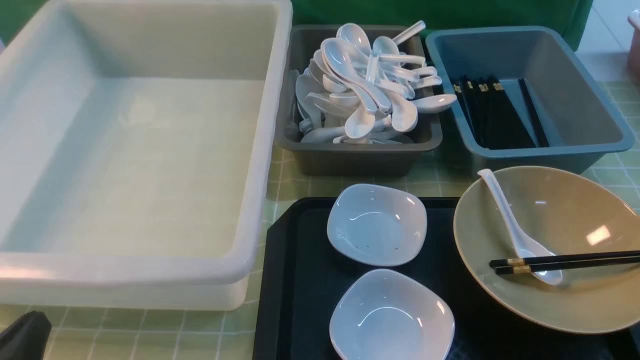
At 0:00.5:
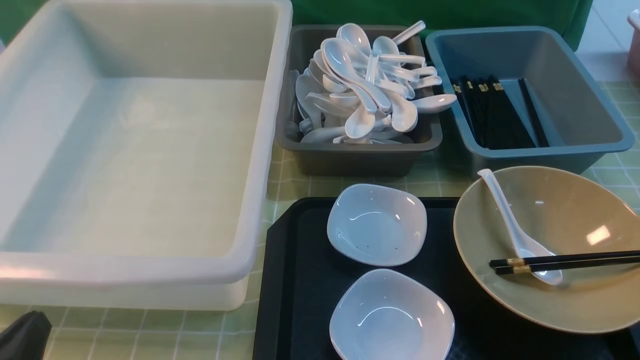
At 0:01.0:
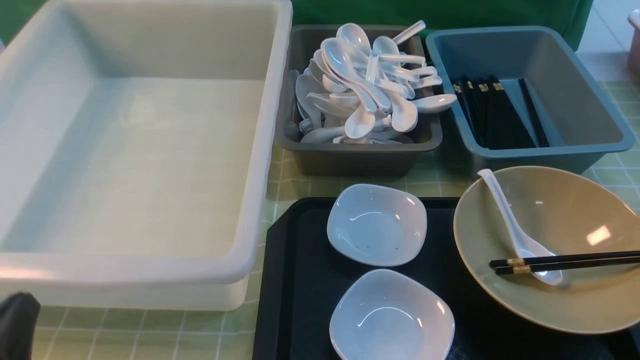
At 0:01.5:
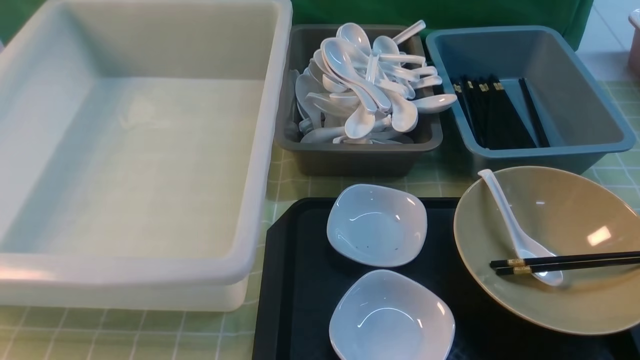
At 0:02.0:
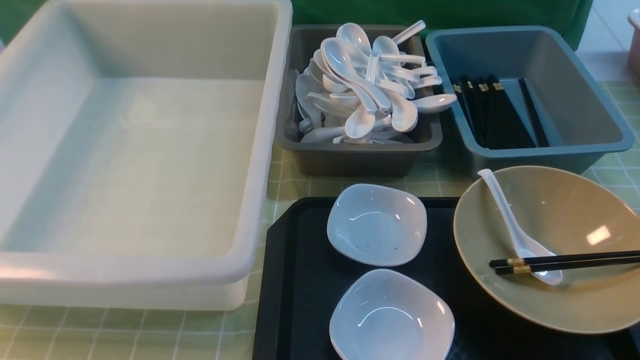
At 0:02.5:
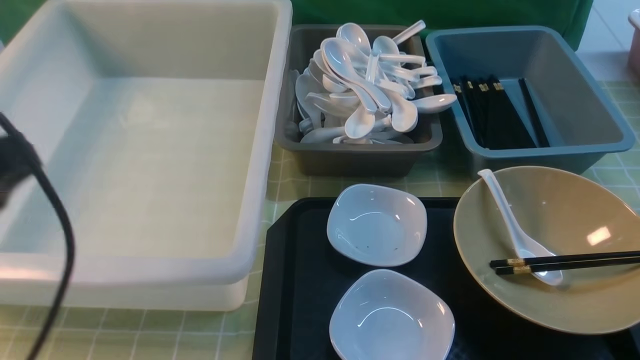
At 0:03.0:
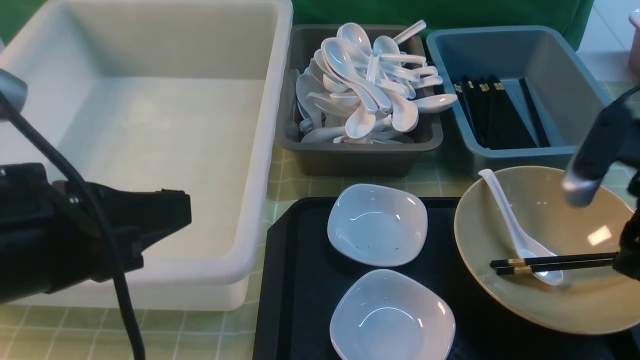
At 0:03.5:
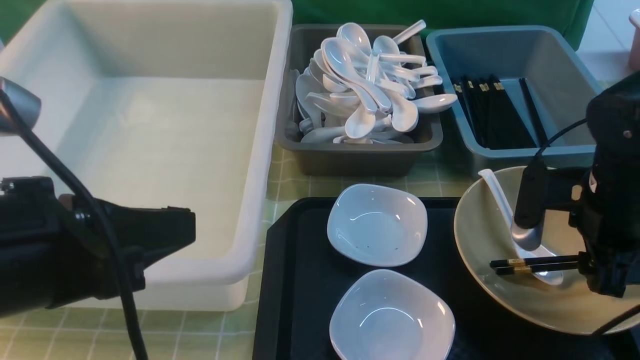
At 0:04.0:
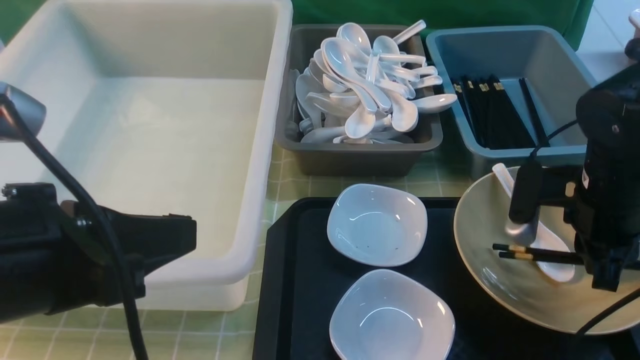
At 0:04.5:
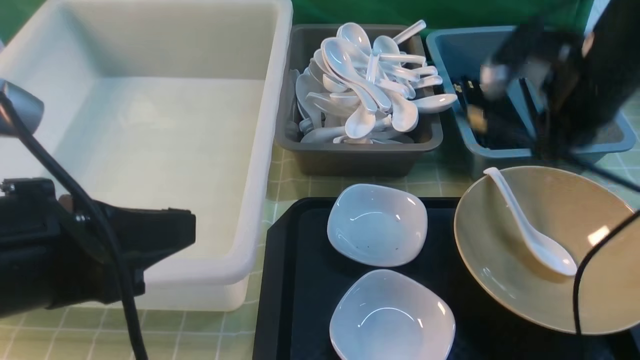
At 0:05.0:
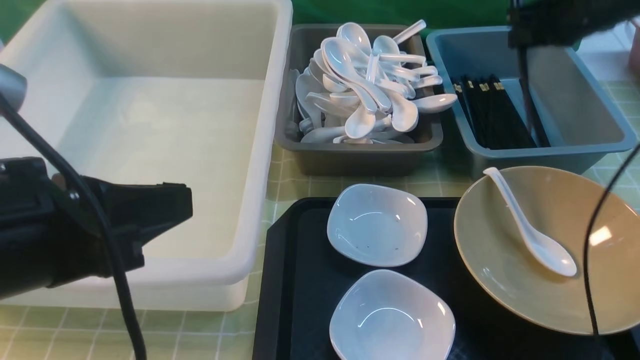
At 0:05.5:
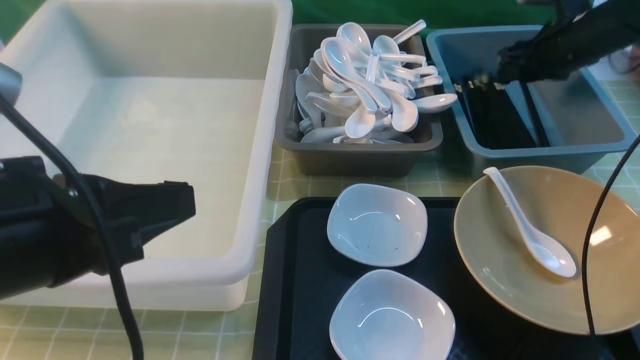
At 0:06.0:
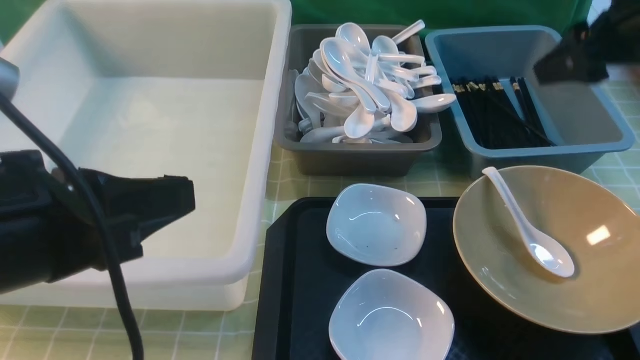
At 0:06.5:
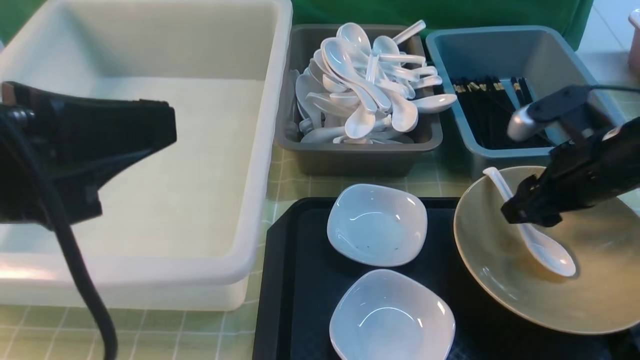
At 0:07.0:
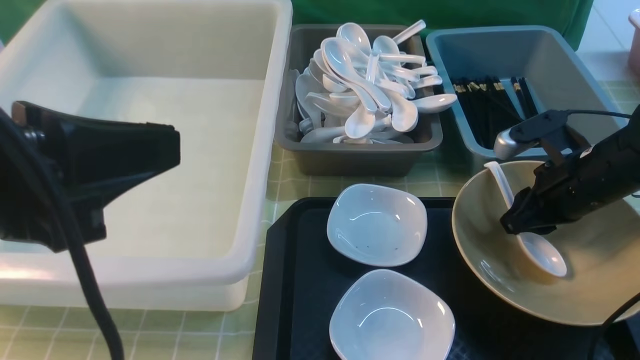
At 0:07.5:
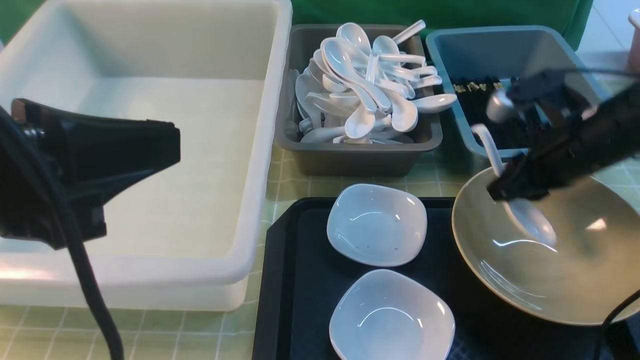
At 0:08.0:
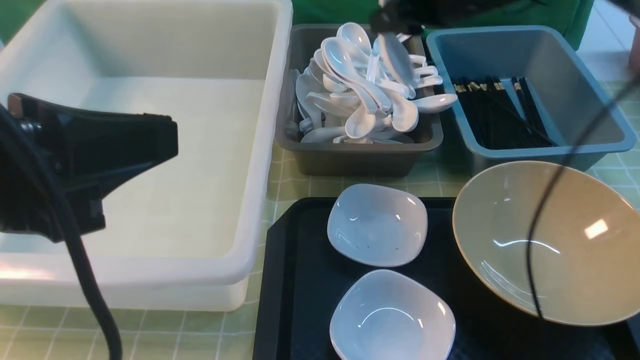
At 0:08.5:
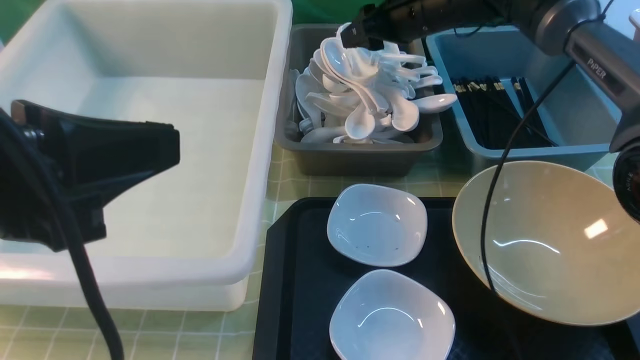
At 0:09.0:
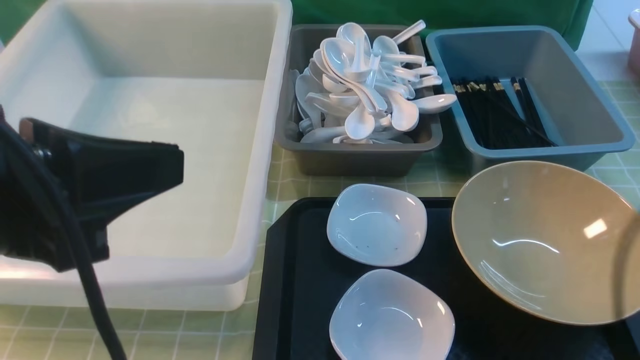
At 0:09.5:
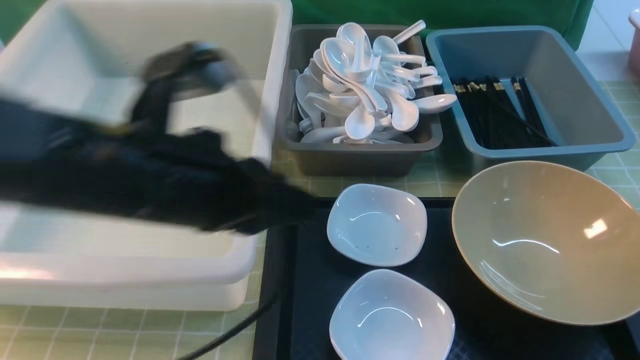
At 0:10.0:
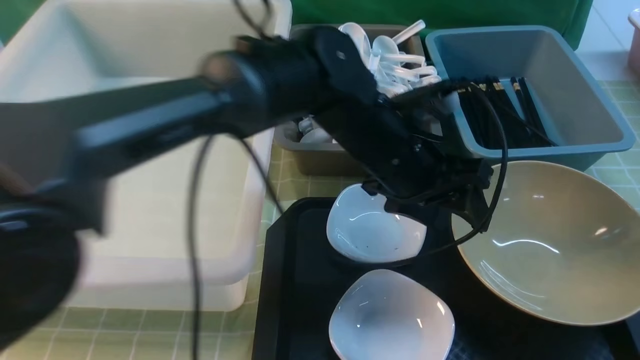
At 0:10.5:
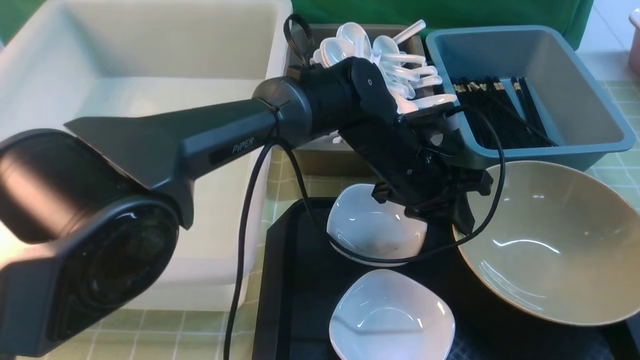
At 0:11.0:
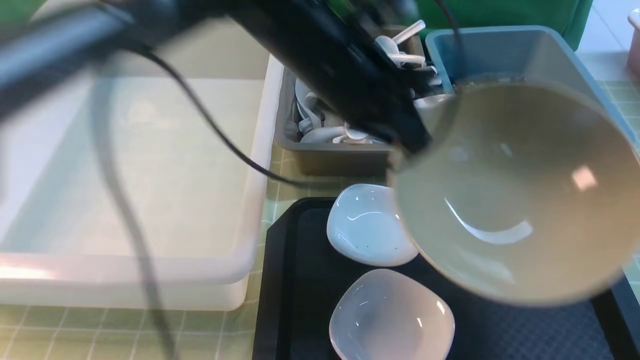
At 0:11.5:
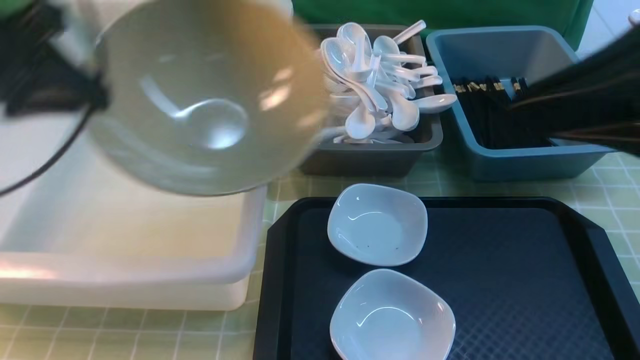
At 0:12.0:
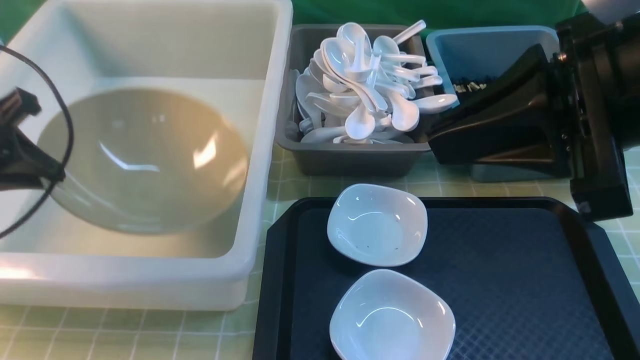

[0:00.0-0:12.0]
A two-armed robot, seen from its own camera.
Task of the whole recording: on green table put chopsticks spoon bowls plates into blue grey white boxes.
Step, 0:00.0 to 0:04.0: use the right arm to grab the chopsticks.
Step, 0:05.0 to 0:05.5: use the right arm to put the chopsticks into the small storage box on the right.
Step, 0:06.0 to 0:07.0: use the right arm to grab the soup spoon in the middle.
Step, 0:07.5 to 0:09.0: use the right arm to put the soup spoon into the small storage box in the middle.
Step, 0:09.5 to 0:10.5: use the left arm to grab the yellow noodle bowl on the left.
0:02.0 to 0:04.0: The right gripper moves forward and downward, approximately 30 cm, and opens and closes again, while the left gripper heads forward and to the right, covering roughly 10 cm.
0:04.0 to 0:06.0: The right gripper heads upward and forward, covering roughly 15 cm, and opens up.
0:06.0 to 0:08.0: The right gripper goes approximately 15 cm to the left and forward, moves about 15 cm downward and comes back, and closes up.
0:08.0 to 0:10.0: The left gripper travels to the right, forward and downward by roughly 30 cm, and opens. The right gripper moves backward, about 40 cm, and opens, then closes once more.
0:10.0 to 0:12.0: The right gripper travels forward and to the left by approximately 15 cm; the left gripper shifts about 35 cm to the left, and closes.

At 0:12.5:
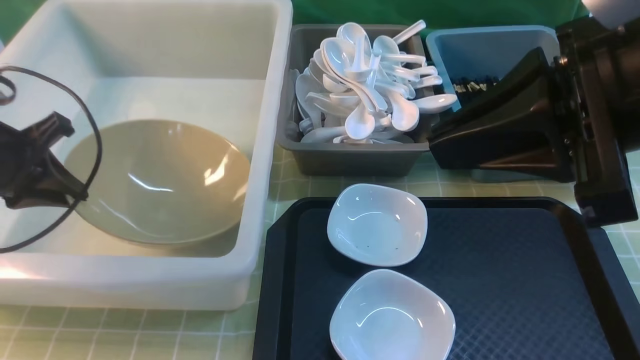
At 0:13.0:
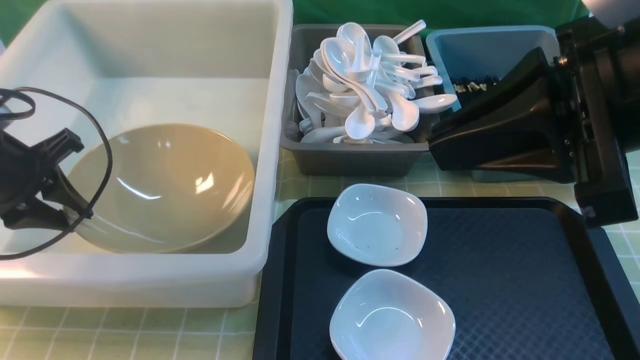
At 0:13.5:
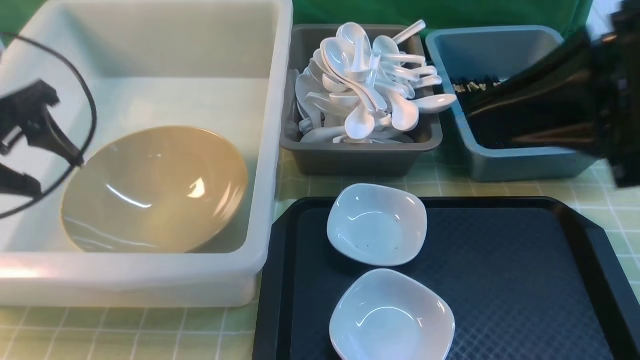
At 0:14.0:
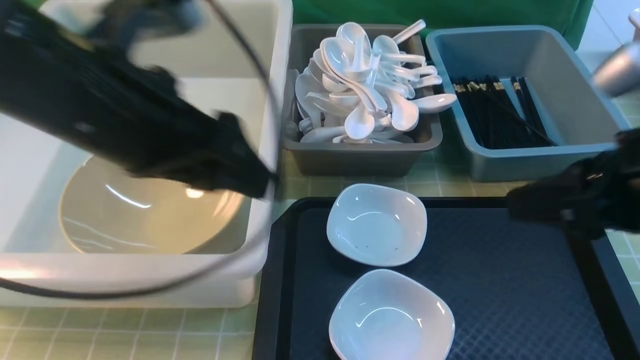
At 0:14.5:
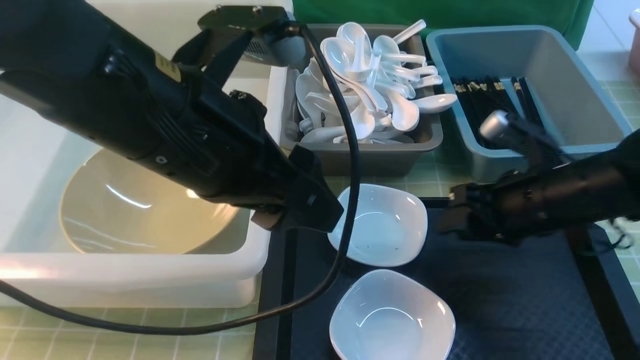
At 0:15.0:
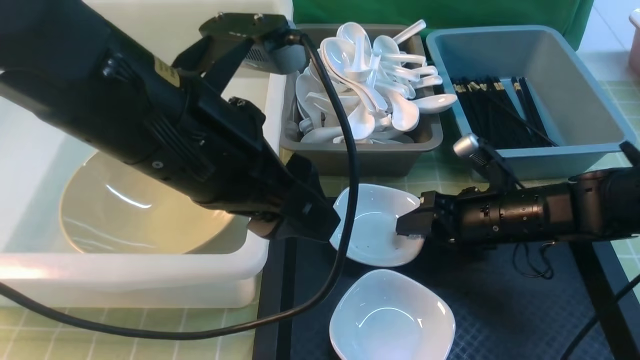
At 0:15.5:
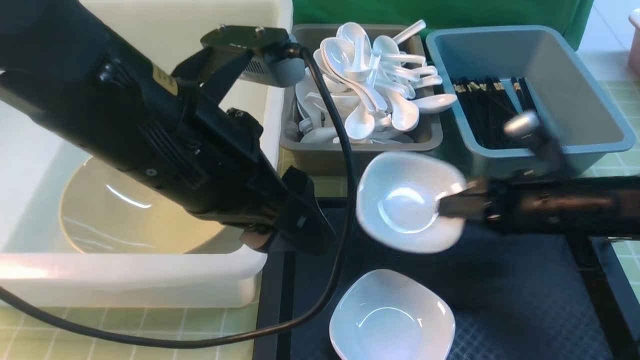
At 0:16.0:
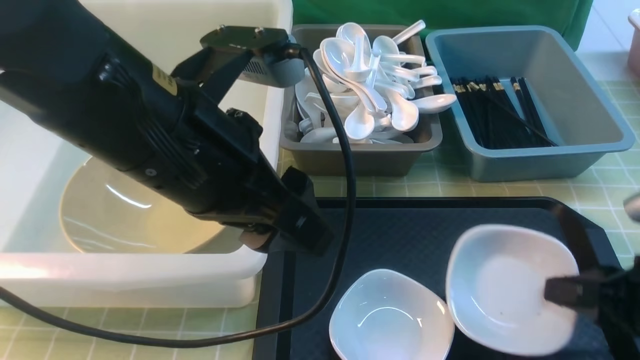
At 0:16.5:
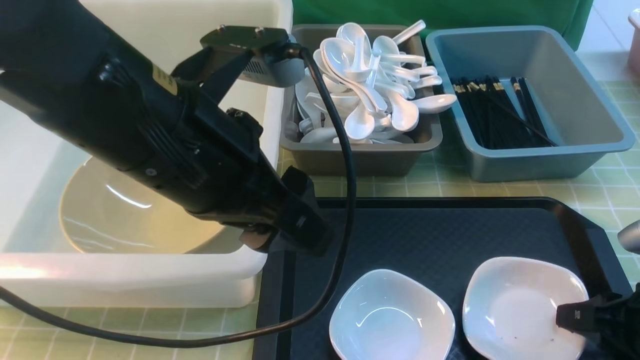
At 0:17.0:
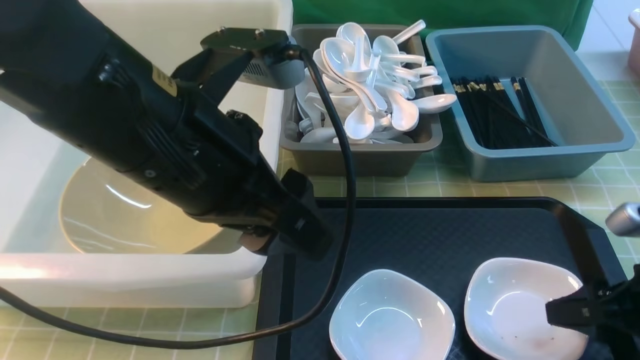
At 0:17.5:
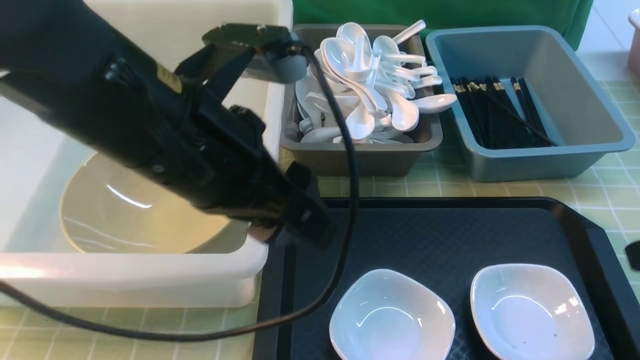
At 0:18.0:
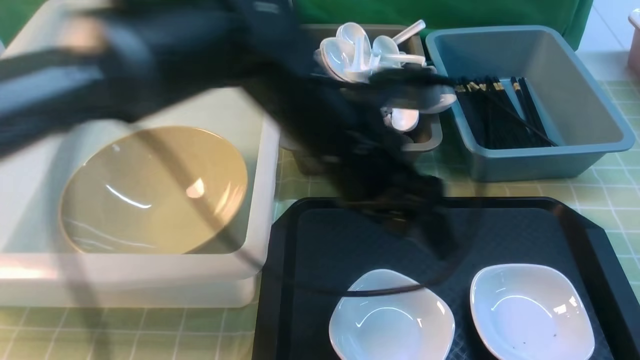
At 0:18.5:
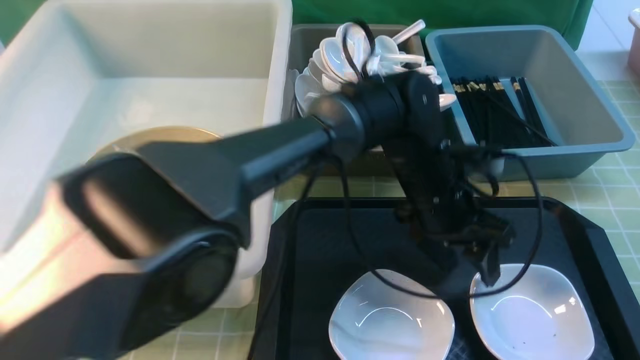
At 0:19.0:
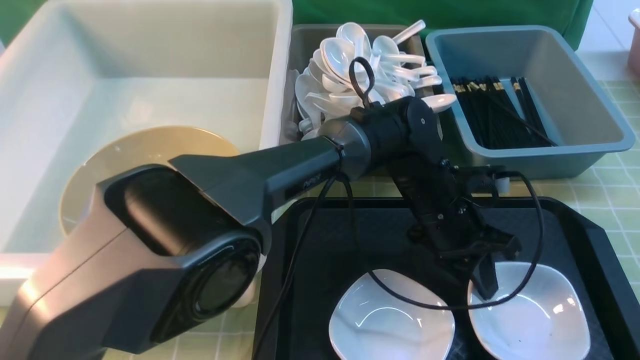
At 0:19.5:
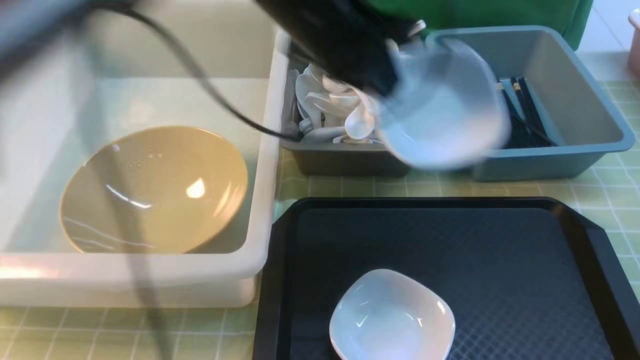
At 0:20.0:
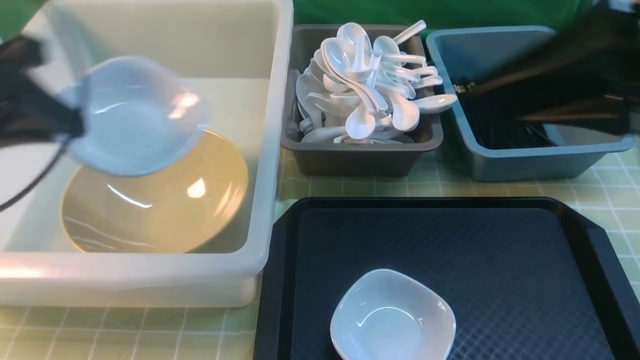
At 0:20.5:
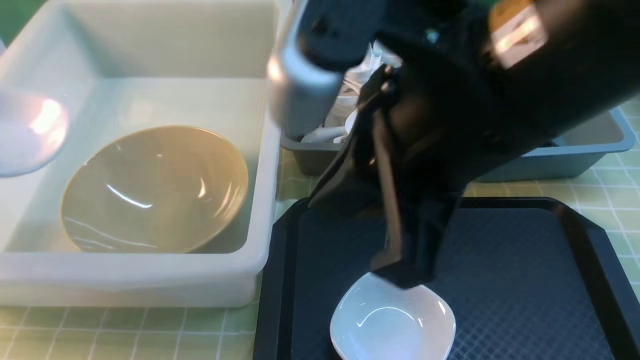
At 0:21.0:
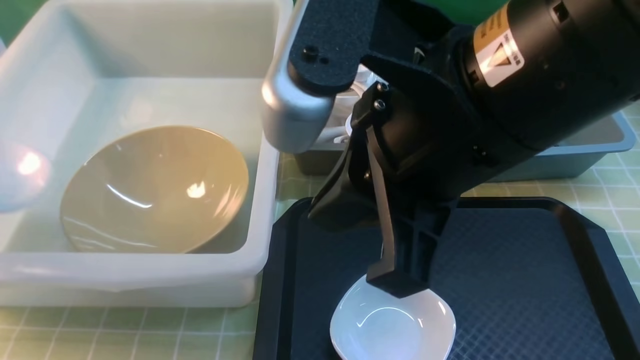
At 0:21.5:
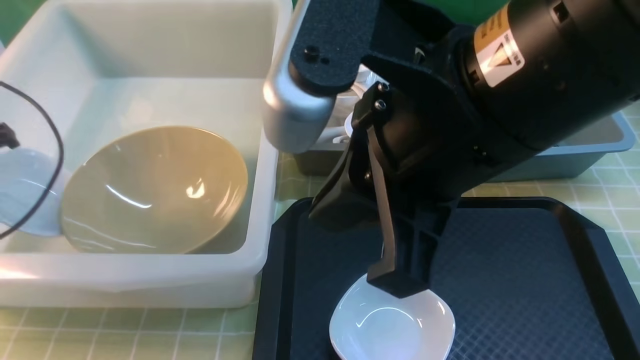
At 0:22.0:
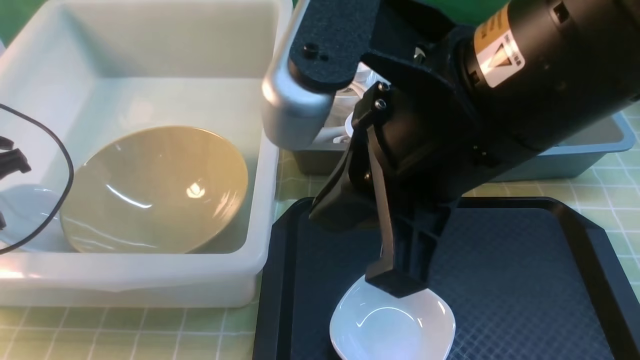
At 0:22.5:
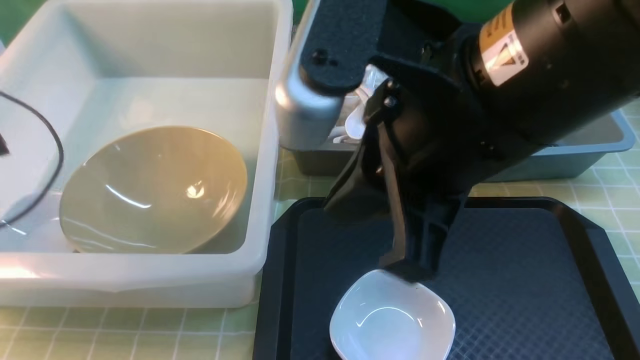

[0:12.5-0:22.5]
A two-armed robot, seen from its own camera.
Task of the whole recording: on green table put chopsticks spoon bowls plates into blue grey white boxes.
Step, 0:14.0 to 0:15.0: use the right arm to grab the plate.
Step, 0:16.0 to 0:17.0: use the right arm to put the plate on the tray.
Step, 0:17.5 to 0:19.0: use the left arm to grab the plate.
0:12.5 to 0:14.5: The right gripper moves downward and forward, roughly 25 cm, and opens, while the left gripper heads to the right and upward, covering approximately 25 cm, and opens up.
0:14.5 to 0:16.5: The right gripper is displaced backward, to the right and downward by about 15 cm, and closes.
0:16.5 to 0:18.5: The right gripper travels upward and backward by roughly 20 cm, and opens. The left gripper goes about 30 cm to the right, downward and forward.
0:18.5 to 0:20.5: The left gripper shifts approximately 50 cm to the left, and closes its fingers, while the right gripper goes roughly 20 cm to the left and forward, and closes its fingers.
0:20.5 to 0:22.5: The left gripper shifts approximately 10 cm forward and downward, and opens.
